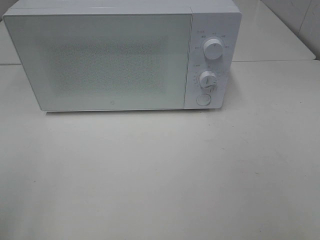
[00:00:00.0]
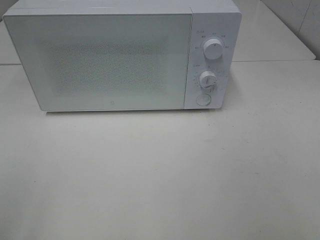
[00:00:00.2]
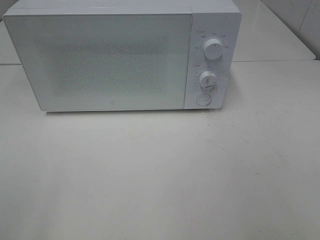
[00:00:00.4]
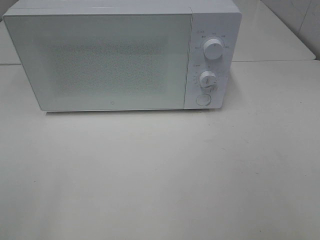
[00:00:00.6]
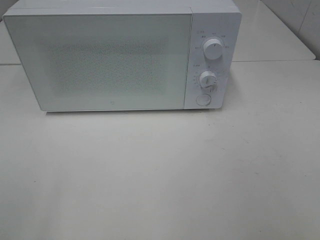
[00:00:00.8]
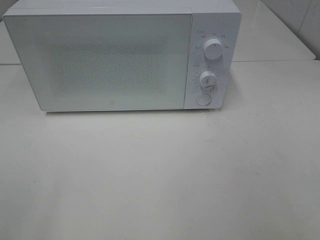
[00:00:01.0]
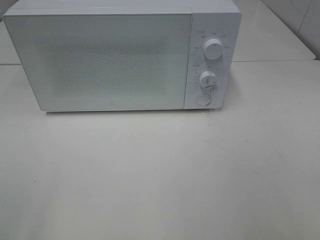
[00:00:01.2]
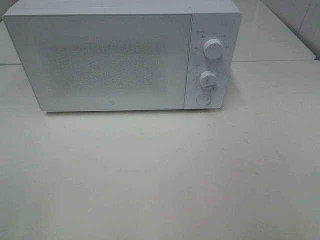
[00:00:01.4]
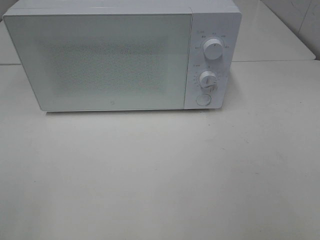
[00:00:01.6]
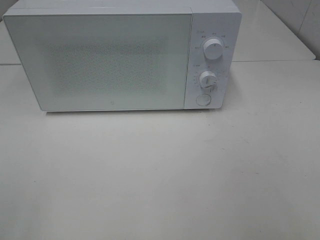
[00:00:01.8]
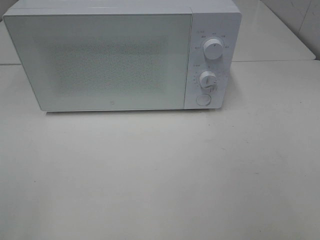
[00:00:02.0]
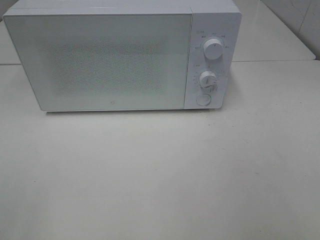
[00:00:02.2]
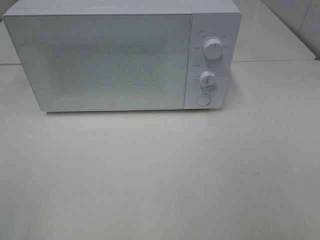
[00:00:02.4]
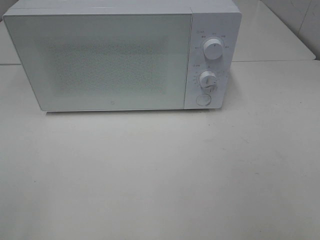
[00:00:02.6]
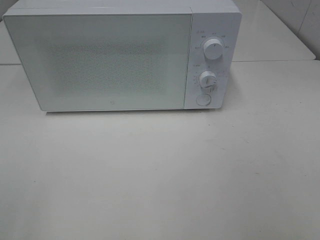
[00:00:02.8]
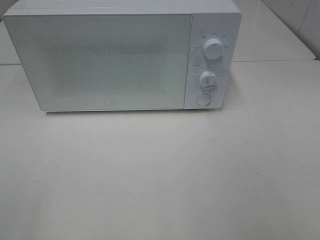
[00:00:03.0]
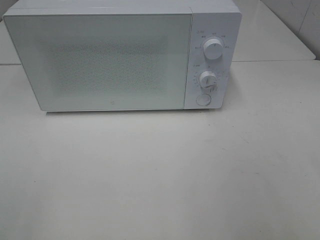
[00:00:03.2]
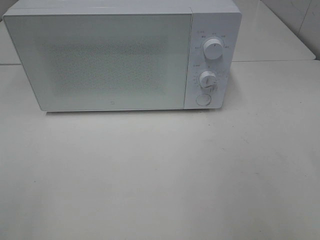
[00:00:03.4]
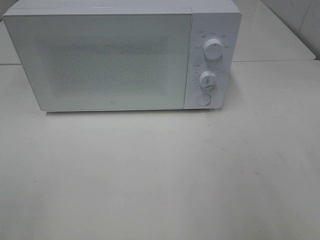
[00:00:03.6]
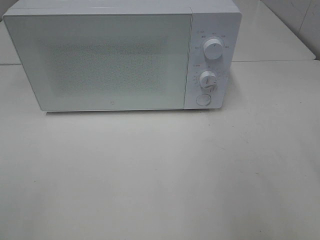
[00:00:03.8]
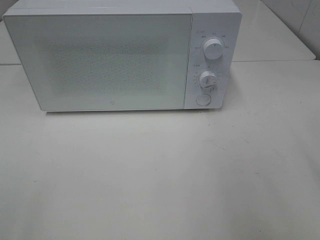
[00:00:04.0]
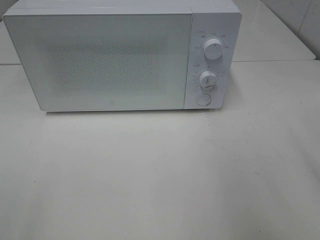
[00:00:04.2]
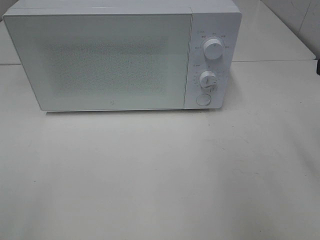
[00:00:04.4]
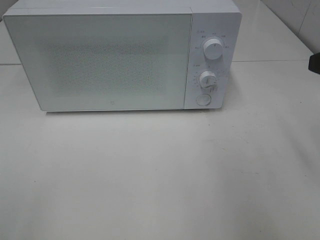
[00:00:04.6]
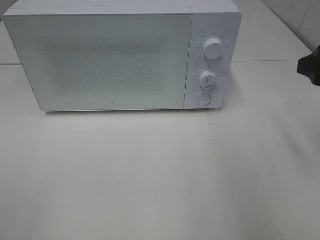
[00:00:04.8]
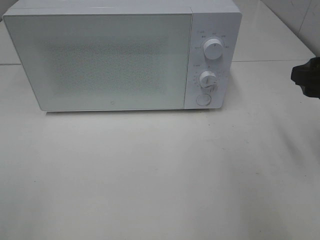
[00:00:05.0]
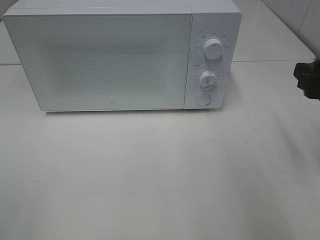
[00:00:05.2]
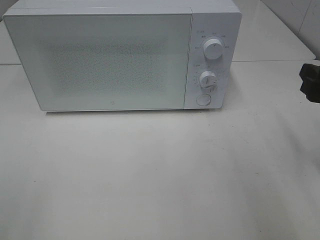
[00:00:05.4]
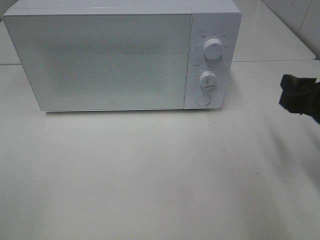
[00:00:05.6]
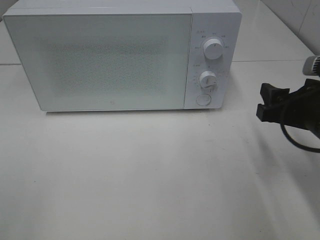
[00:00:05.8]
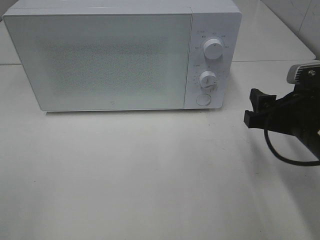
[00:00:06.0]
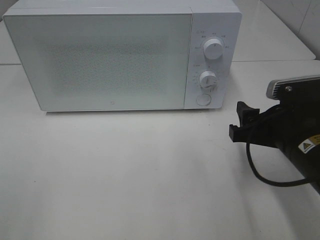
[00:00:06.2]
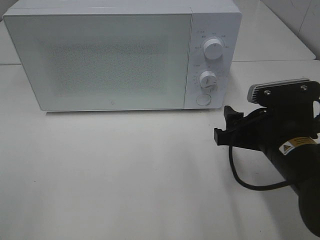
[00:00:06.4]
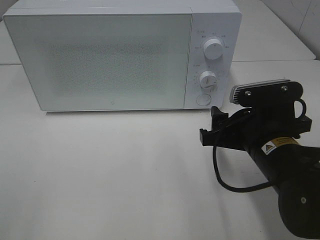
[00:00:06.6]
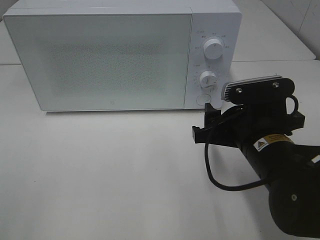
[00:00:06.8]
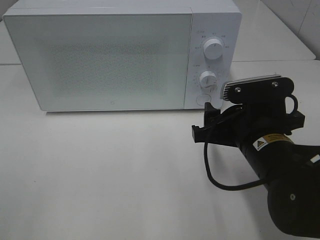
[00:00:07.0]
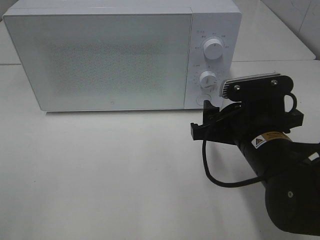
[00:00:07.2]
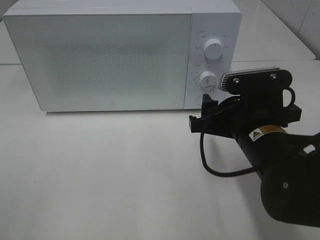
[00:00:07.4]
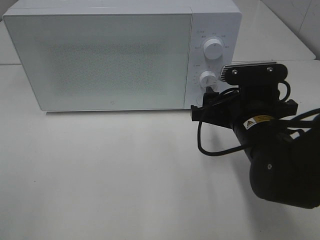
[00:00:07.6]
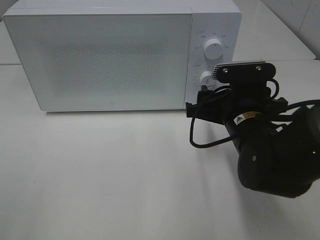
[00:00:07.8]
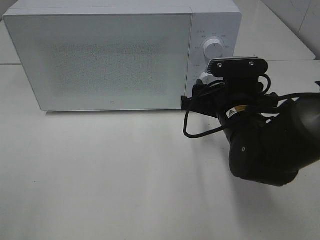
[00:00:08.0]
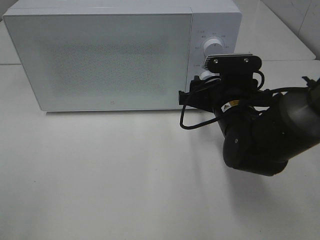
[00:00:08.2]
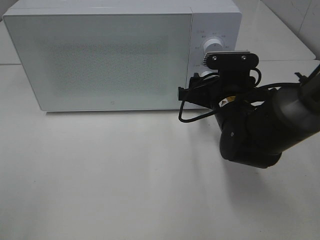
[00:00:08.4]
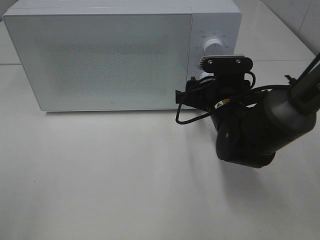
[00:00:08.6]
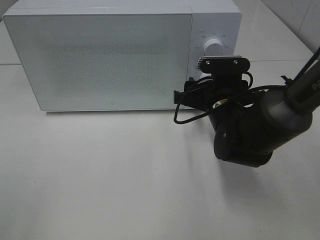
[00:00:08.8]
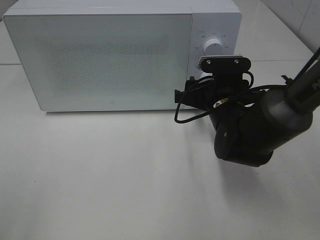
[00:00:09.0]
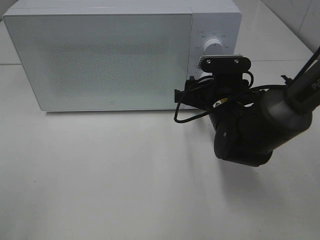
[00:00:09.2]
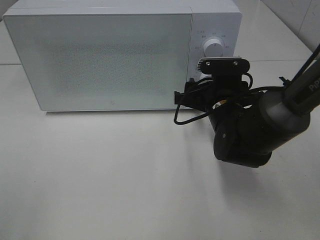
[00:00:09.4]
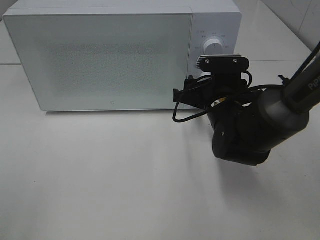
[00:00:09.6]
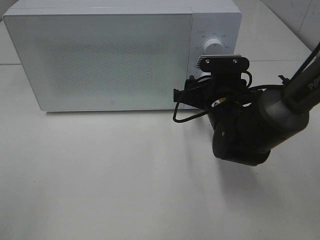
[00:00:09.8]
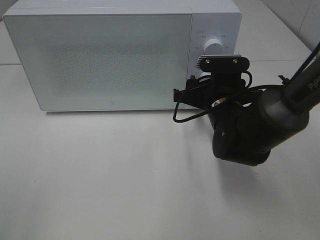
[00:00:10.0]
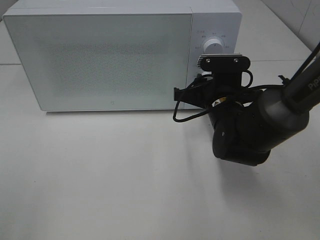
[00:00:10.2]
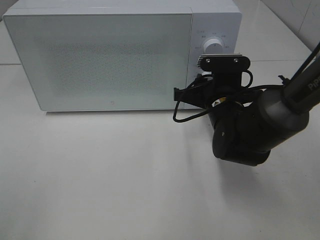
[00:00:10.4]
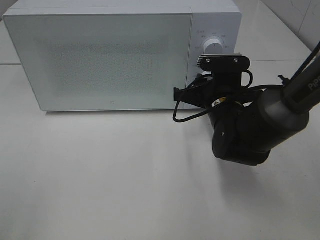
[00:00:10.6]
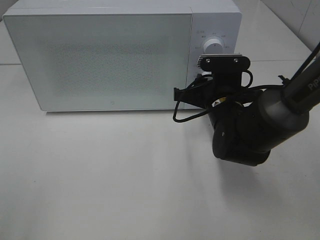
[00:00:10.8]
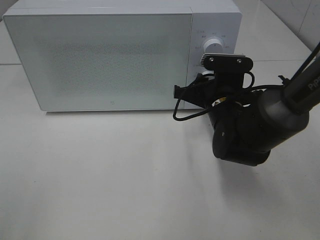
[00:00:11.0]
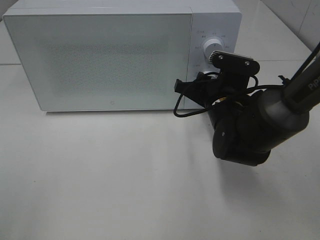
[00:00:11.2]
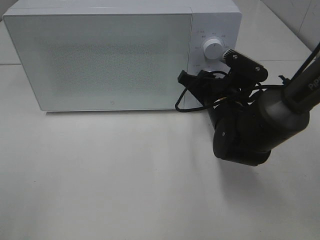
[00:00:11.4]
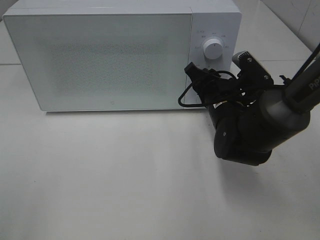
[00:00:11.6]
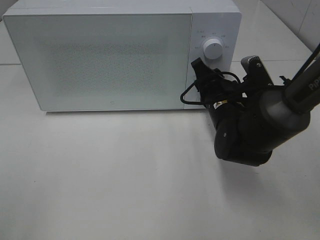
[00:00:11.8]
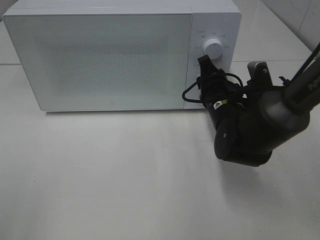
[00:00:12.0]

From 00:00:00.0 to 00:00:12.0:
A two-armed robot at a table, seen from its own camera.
Task of the whole recording: Heat Sandwich.
From 00:00:04.4 to 00:00:06.0: The right gripper travels downward and to the left by approximately 15 cm.
From 00:00:06.0 to 00:00:07.6: The right gripper is displaced to the left by some 10 cm.
From 00:00:07.6 to 00:00:09.0: The right gripper is displaced forward by some 5 cm.
From 00:00:09.0 to 00:00:10.4: The right gripper closes up.

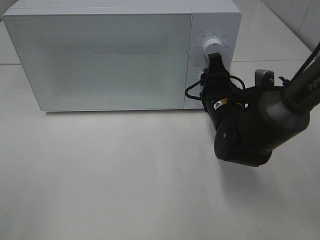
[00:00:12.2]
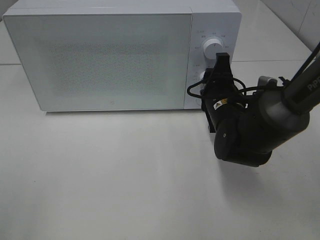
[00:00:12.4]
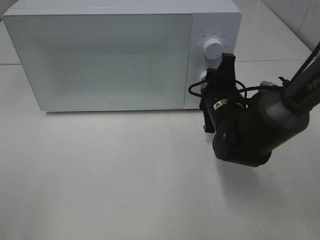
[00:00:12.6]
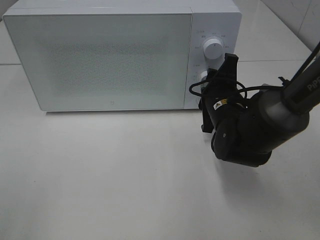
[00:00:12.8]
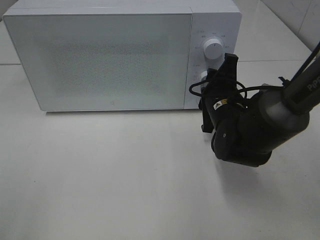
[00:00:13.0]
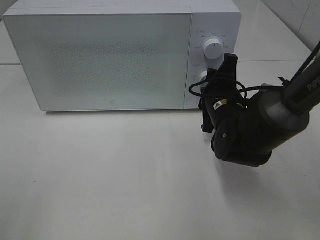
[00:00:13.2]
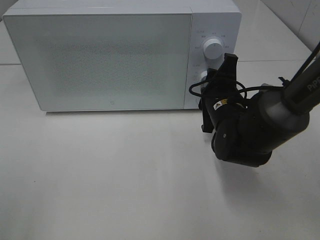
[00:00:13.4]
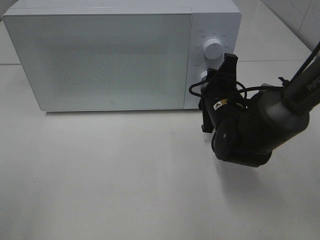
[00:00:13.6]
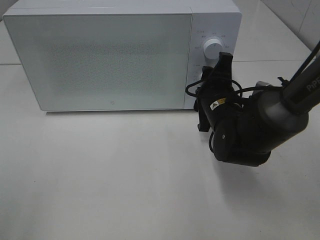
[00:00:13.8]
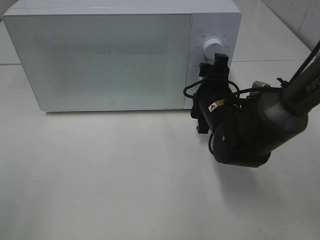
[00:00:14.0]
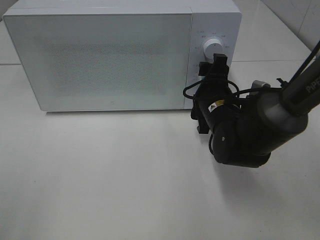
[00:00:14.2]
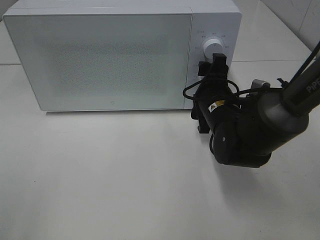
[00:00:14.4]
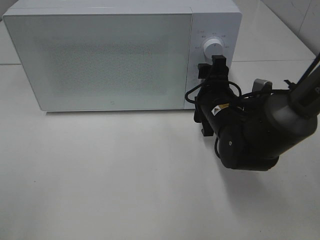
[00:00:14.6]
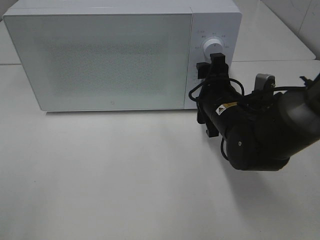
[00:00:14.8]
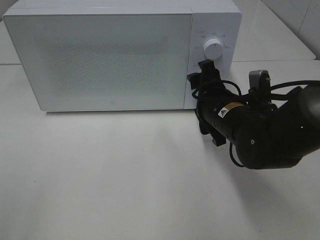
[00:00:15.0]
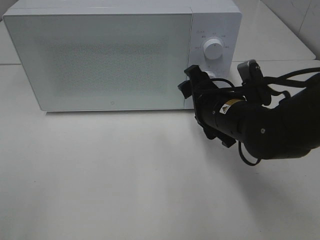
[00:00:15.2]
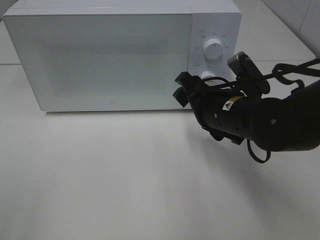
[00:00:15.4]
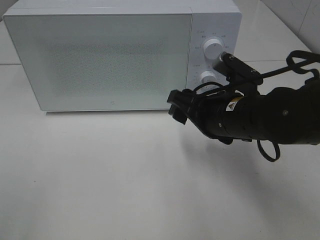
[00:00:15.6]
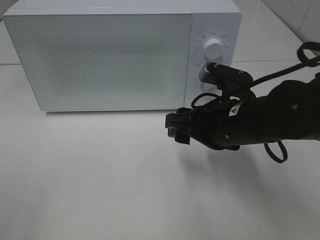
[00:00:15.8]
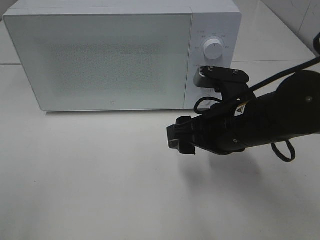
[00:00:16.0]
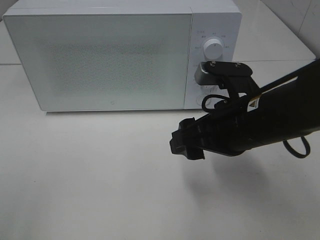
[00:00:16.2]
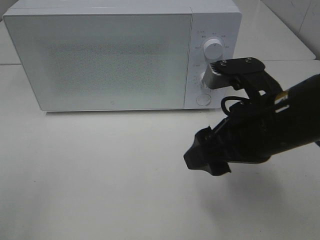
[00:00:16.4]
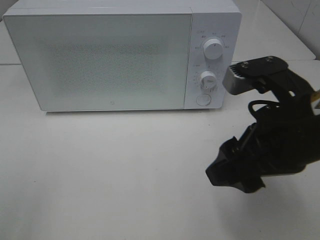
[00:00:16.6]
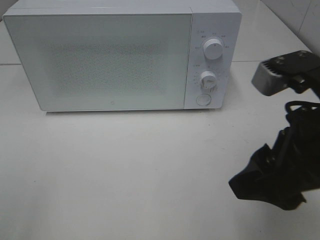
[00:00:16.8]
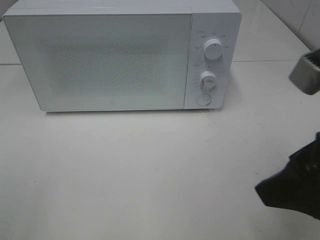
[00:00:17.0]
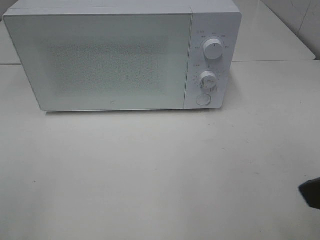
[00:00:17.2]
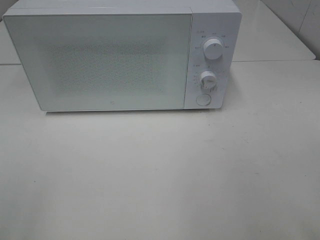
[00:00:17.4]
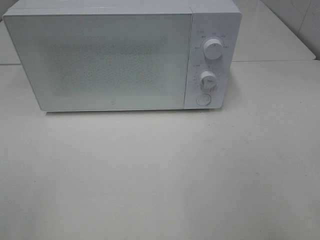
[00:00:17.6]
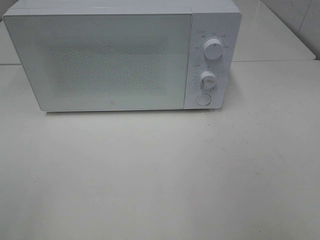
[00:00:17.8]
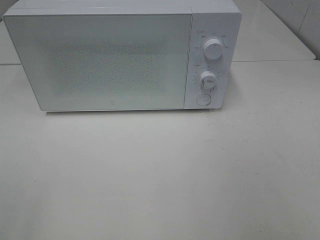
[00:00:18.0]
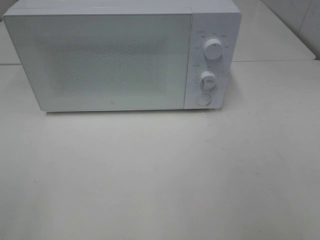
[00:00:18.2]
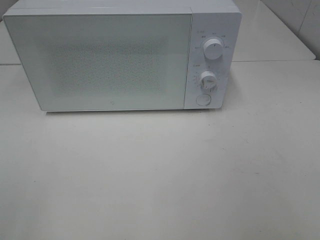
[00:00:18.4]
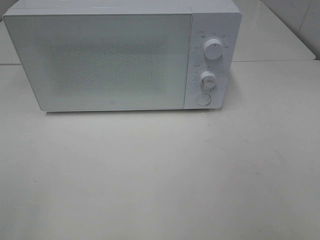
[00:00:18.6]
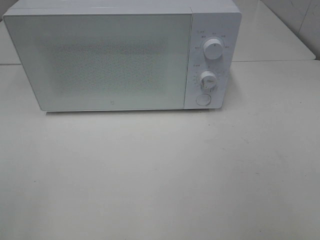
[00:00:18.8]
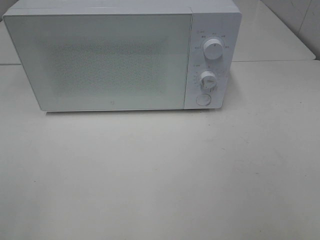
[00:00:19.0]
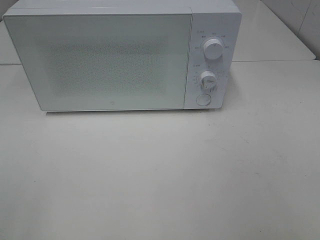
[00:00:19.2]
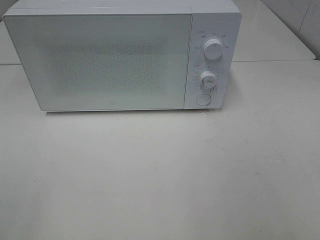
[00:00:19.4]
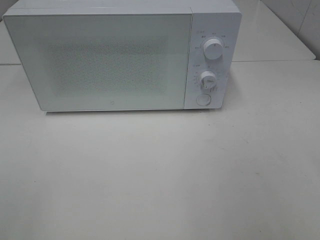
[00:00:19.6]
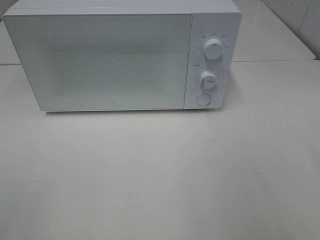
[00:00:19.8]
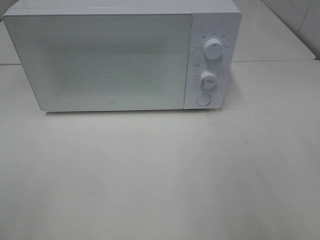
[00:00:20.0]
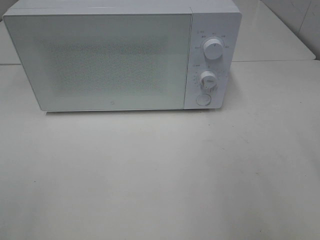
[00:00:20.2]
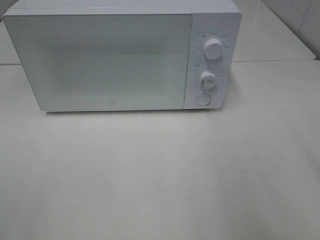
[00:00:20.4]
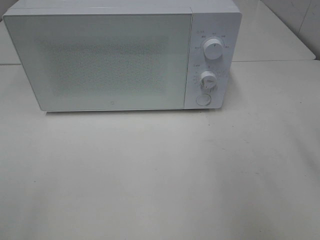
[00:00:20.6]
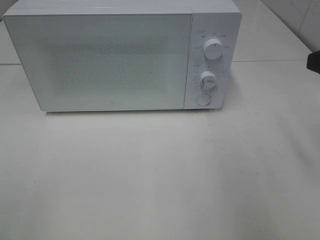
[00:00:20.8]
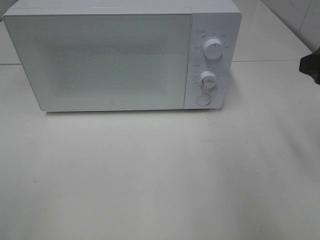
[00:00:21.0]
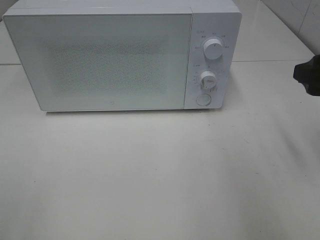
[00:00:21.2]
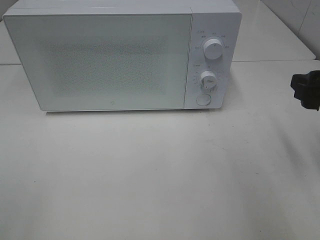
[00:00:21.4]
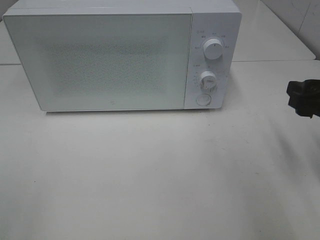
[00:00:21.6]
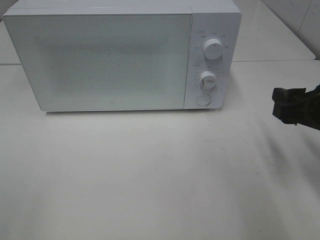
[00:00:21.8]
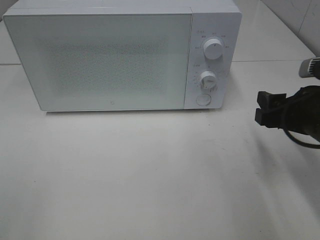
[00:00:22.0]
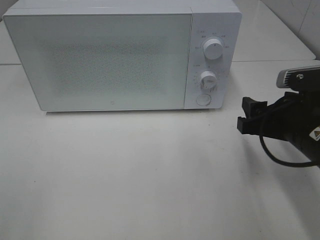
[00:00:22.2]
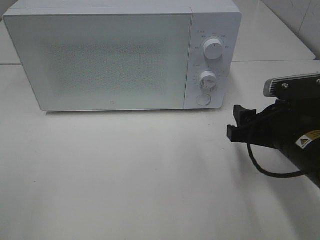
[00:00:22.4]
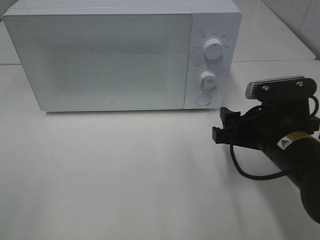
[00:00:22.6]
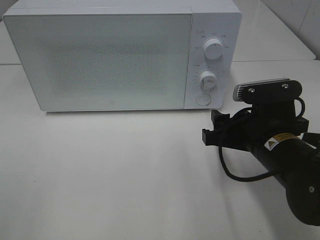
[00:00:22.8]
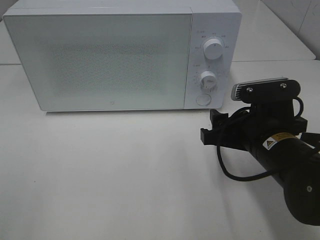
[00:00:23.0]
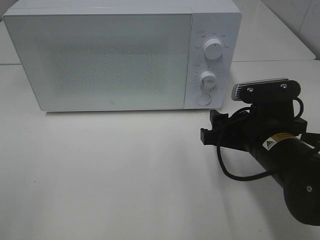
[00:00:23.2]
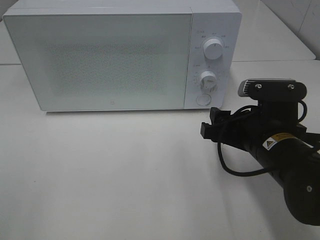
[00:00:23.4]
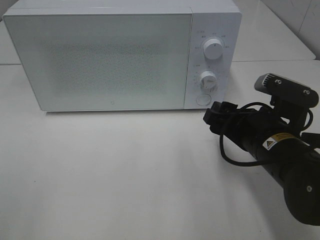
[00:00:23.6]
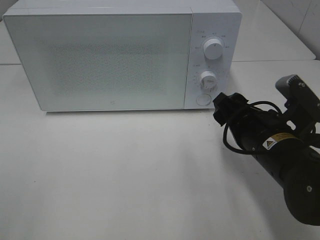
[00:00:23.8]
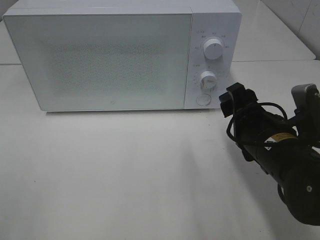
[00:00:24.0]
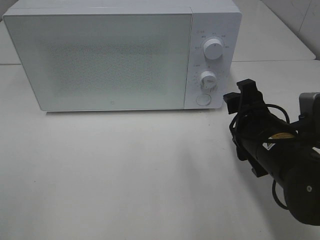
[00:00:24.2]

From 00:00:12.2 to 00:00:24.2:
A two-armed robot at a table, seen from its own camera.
Task of the whole recording: Heat Sandwich.
Step, from 00:00:12.2 to 00:00:15.0: Right hand: twist timer button.
From 00:00:13.8 to 00:00:15.2: The right gripper changes place by approximately 5 cm.
From 00:00:15.2 to 00:00:16.6: The right gripper shifts approximately 15 cm backward and upward.
From 00:00:16.6 to 00:00:18.2: The right gripper moves backward and to the right, some 20 cm.
From 00:00:19.8 to 00:00:21.2: The right gripper goes approximately 15 cm forward and downward.
From 00:00:21.2 to 00:00:22.6: The right gripper is displaced to the left and downward by some 15 cm.
